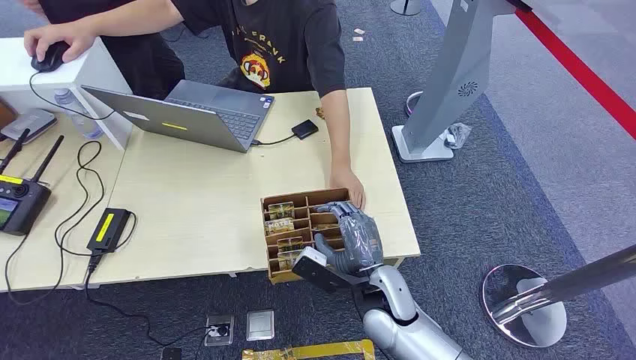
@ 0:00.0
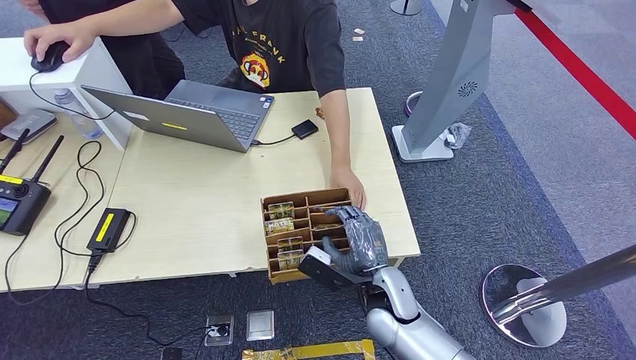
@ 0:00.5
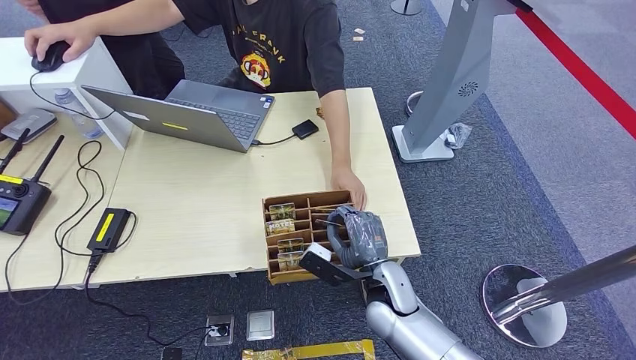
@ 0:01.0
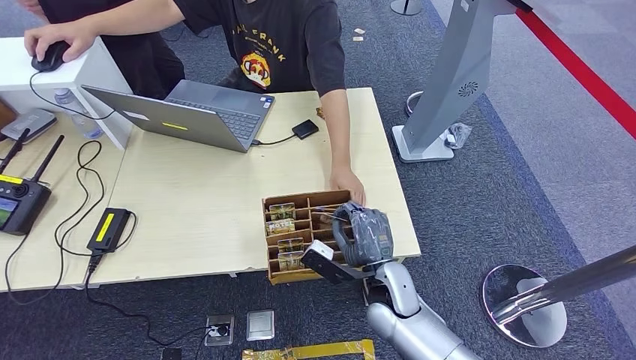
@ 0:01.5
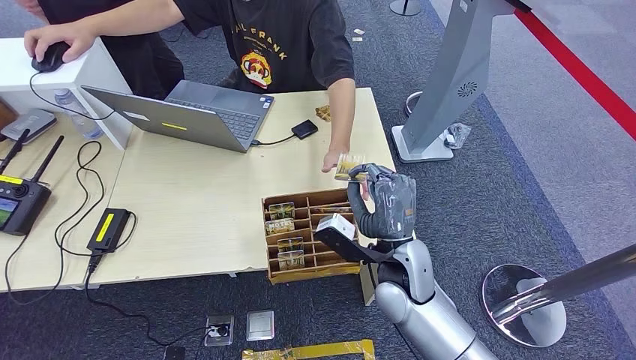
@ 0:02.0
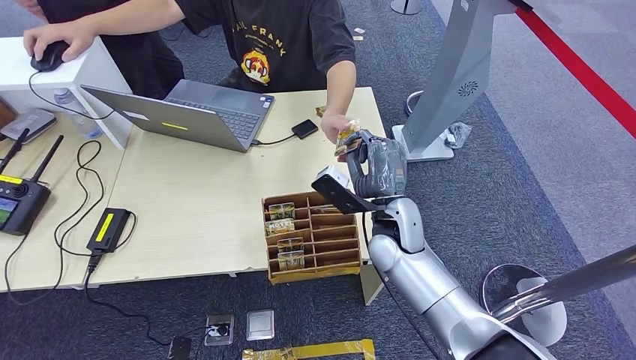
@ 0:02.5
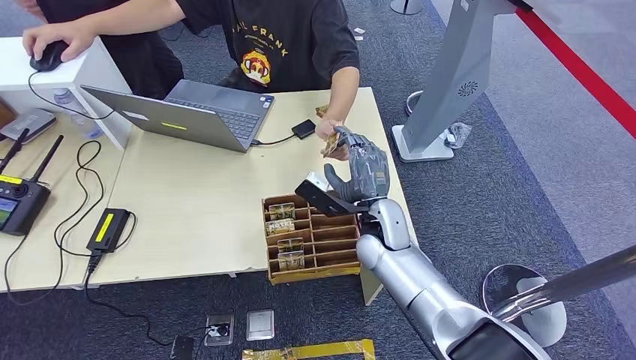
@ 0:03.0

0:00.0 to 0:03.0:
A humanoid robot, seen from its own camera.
Step, 0:00.0 to 0:00.5: Pick up the room card from the card holder.
Step, 0:01.0 to 0:02.5: Hand the room card to the target.
0:01.5 to 0:03.0: The right hand goes roughly 10 cm forward and upward.

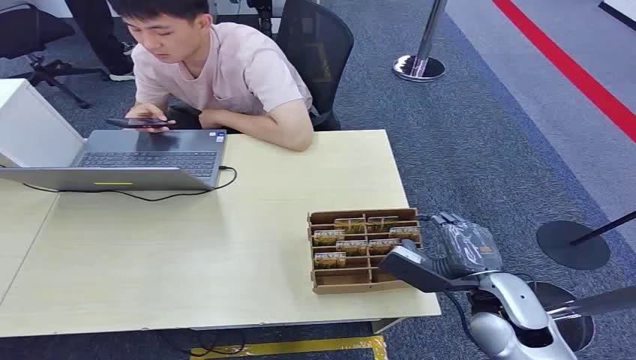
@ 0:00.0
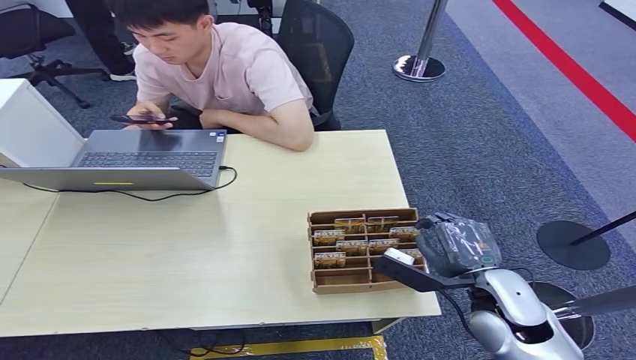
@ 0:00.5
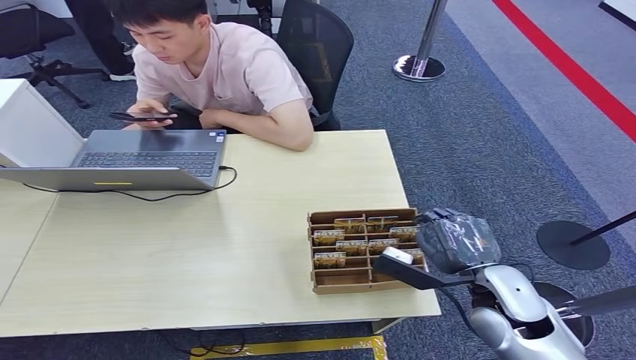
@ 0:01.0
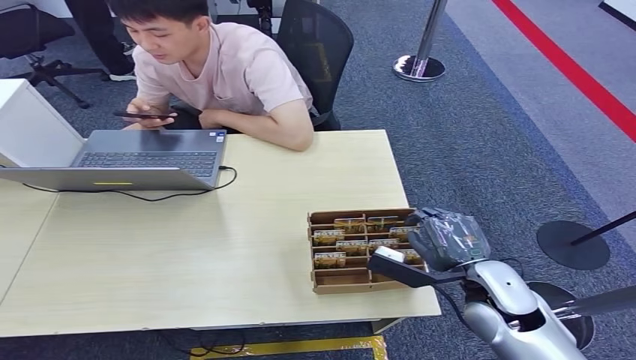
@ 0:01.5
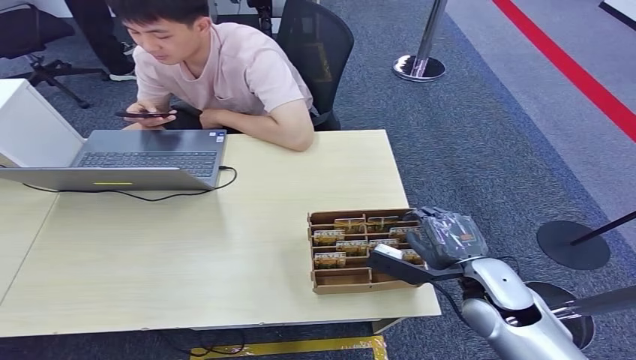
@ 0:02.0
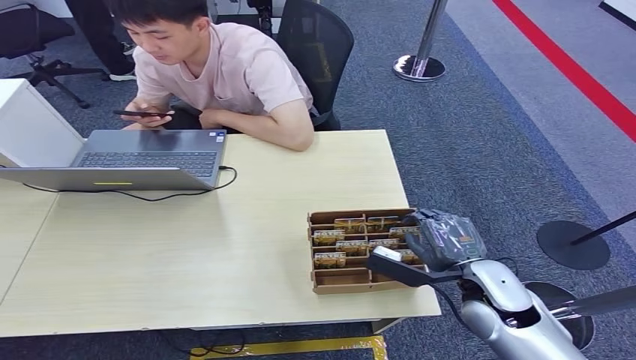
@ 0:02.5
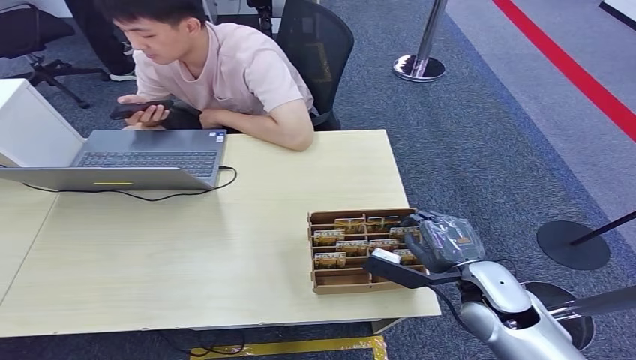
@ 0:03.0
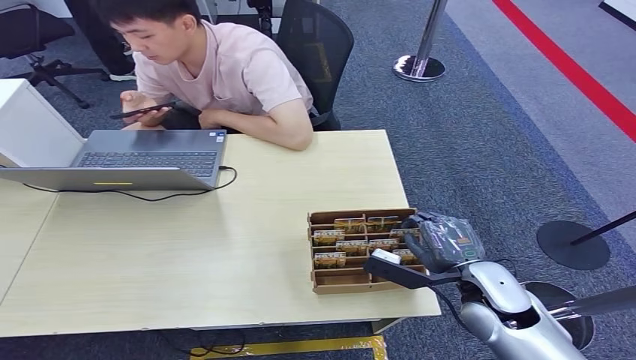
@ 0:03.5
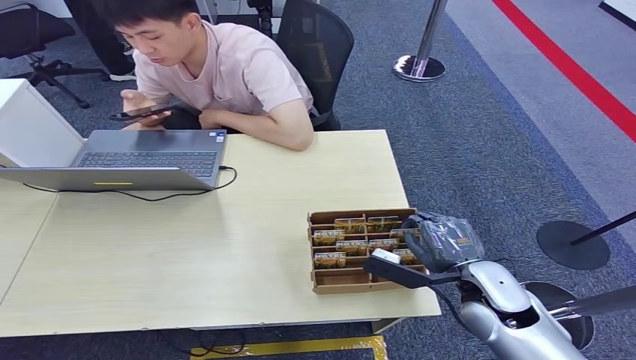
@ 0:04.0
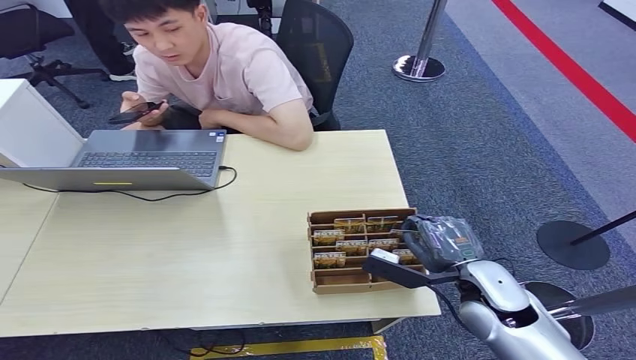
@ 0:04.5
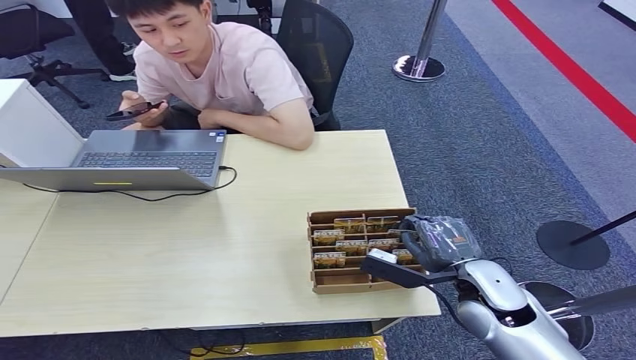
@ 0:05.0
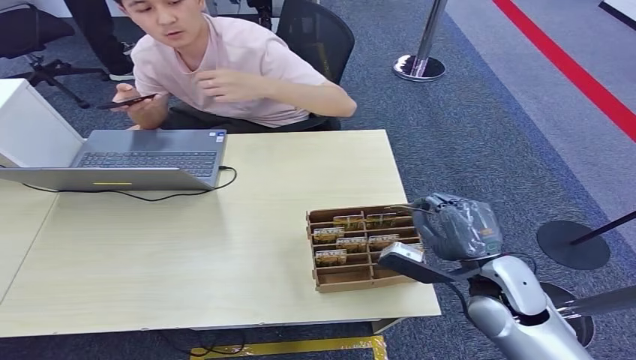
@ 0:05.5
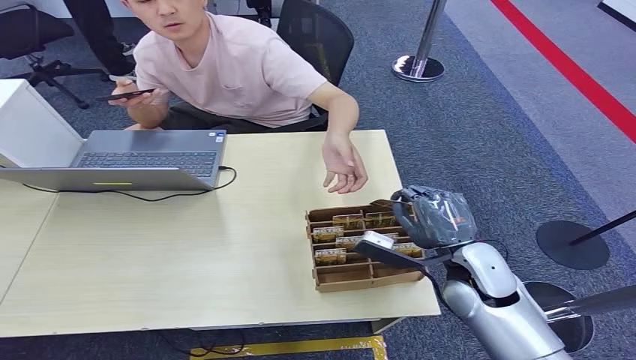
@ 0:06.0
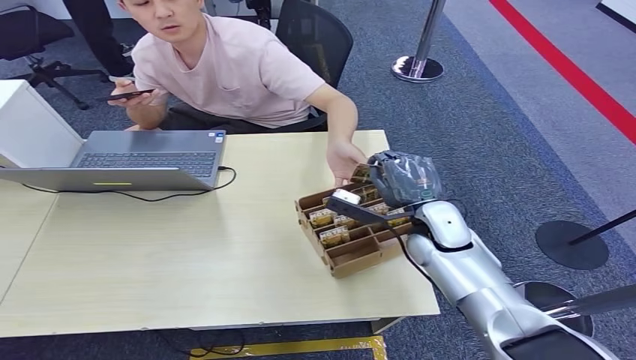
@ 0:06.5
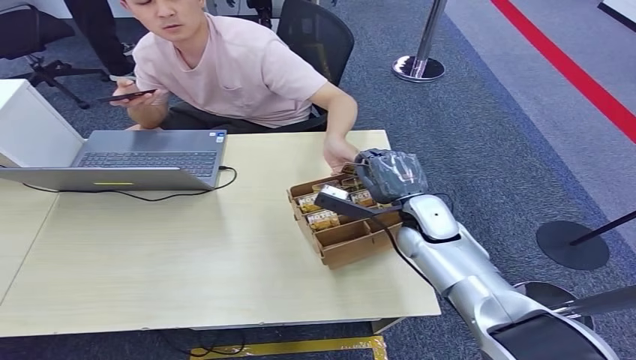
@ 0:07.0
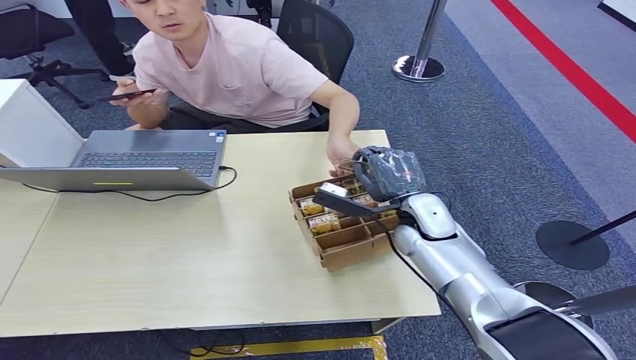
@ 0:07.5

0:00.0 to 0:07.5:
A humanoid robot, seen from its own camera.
Step, 0:00.0 to 0:06.0: Pick up the room card from the card holder.
Step, 0:06.5 to 0:07.5: Hand the room card to the target.
0:02.0 to 0:04.0: Both hands stay about where they are.
0:05.5 to 0:07.5: The right hand travels forward and to the left by approximately 15 cm.
